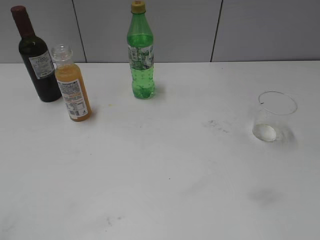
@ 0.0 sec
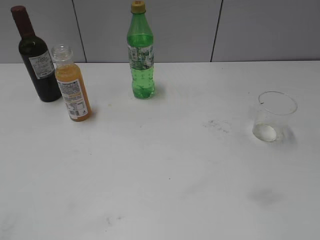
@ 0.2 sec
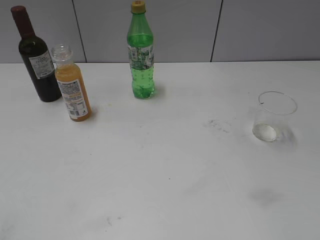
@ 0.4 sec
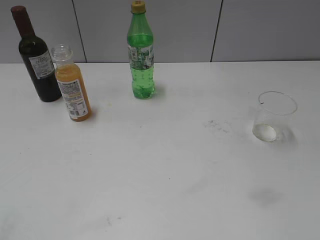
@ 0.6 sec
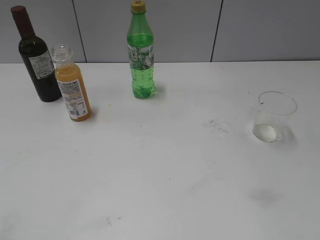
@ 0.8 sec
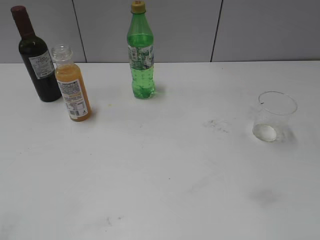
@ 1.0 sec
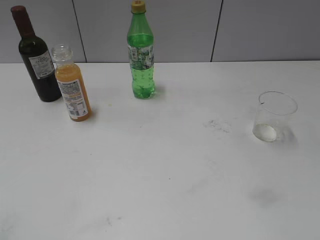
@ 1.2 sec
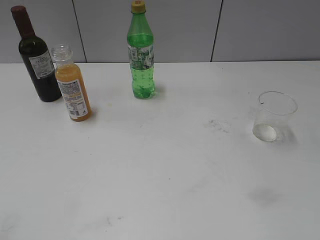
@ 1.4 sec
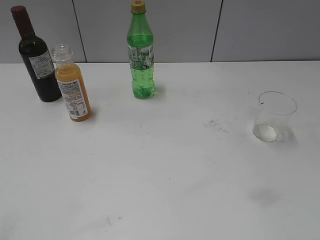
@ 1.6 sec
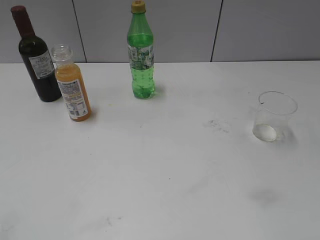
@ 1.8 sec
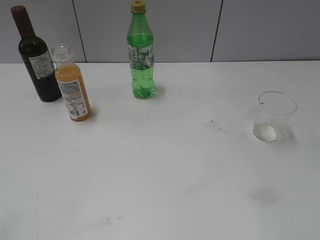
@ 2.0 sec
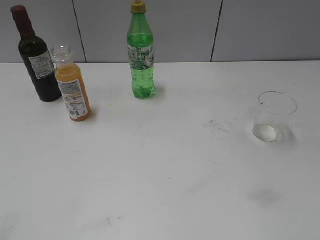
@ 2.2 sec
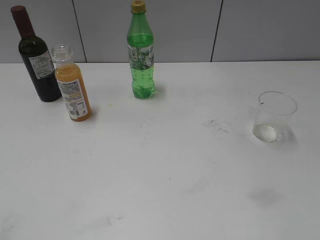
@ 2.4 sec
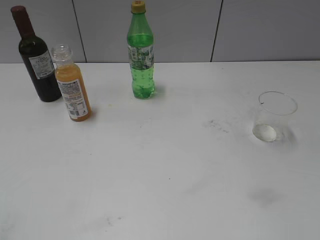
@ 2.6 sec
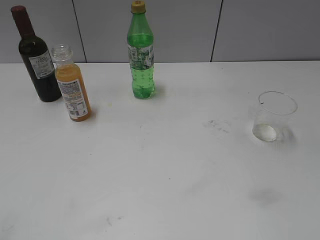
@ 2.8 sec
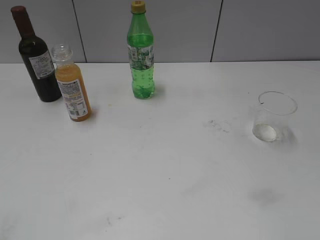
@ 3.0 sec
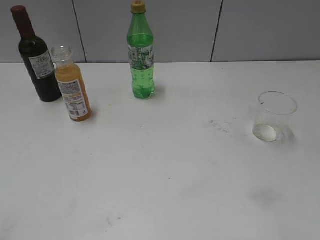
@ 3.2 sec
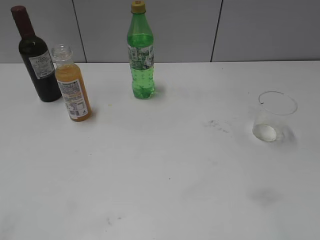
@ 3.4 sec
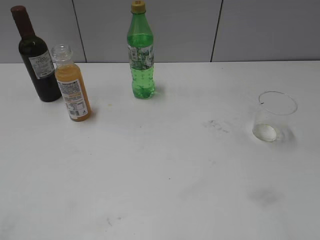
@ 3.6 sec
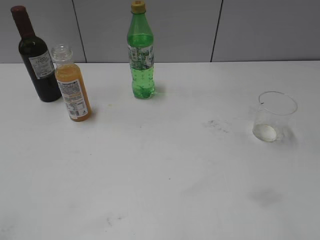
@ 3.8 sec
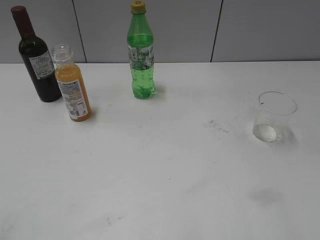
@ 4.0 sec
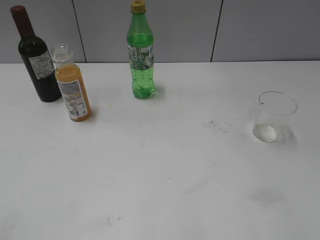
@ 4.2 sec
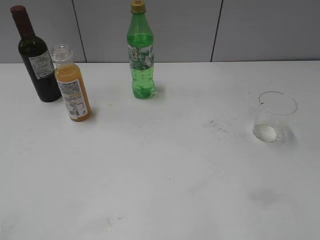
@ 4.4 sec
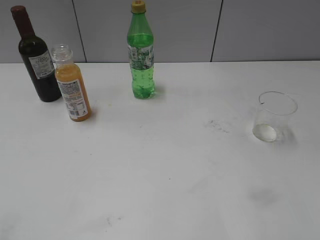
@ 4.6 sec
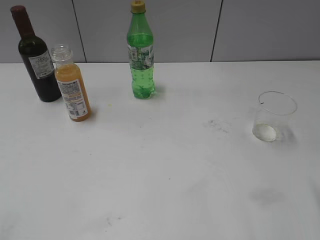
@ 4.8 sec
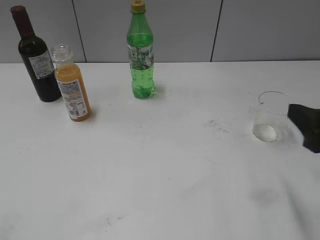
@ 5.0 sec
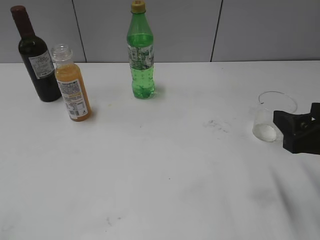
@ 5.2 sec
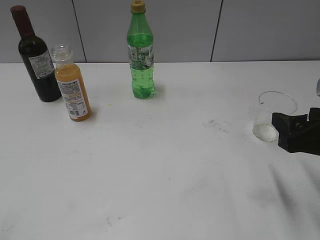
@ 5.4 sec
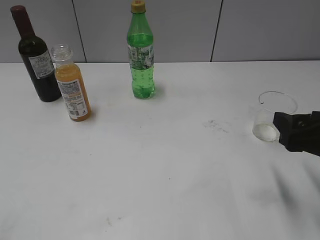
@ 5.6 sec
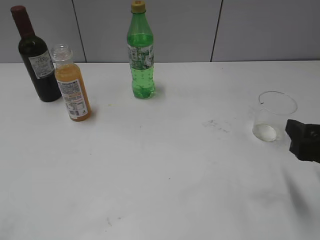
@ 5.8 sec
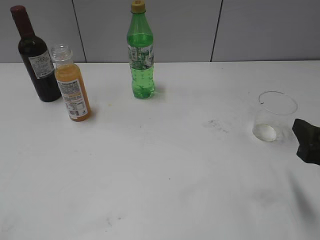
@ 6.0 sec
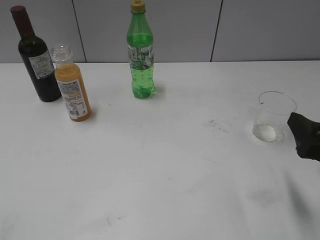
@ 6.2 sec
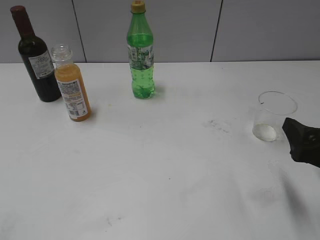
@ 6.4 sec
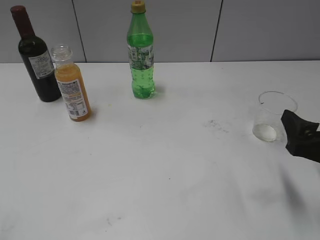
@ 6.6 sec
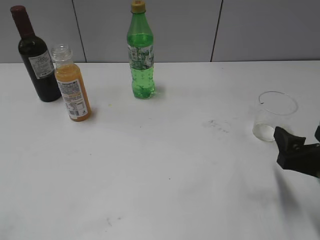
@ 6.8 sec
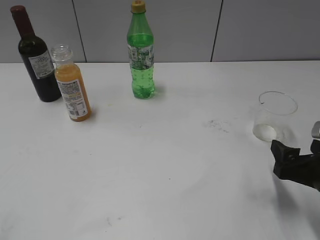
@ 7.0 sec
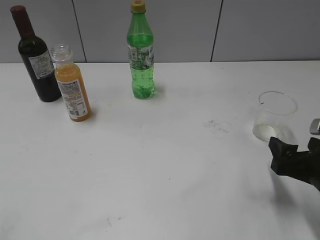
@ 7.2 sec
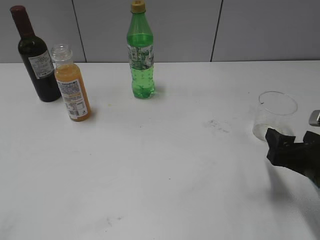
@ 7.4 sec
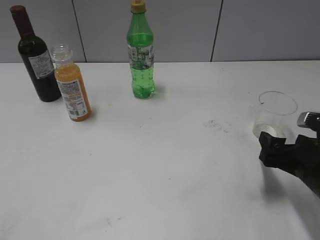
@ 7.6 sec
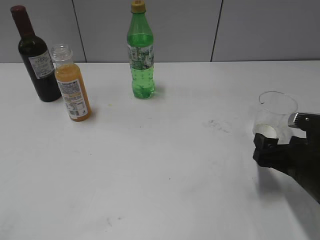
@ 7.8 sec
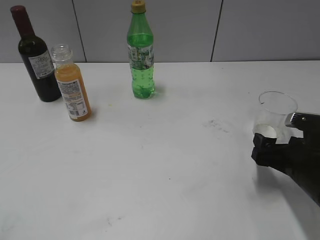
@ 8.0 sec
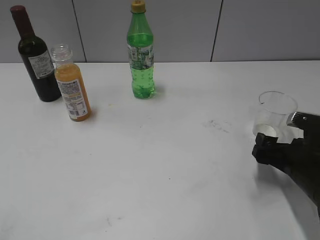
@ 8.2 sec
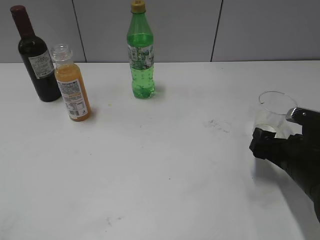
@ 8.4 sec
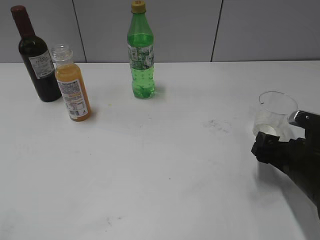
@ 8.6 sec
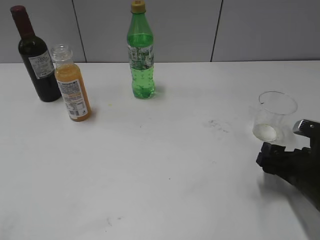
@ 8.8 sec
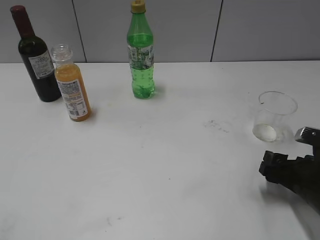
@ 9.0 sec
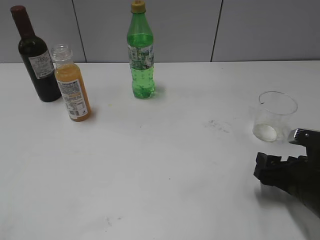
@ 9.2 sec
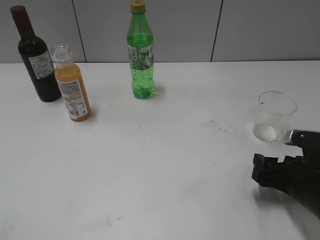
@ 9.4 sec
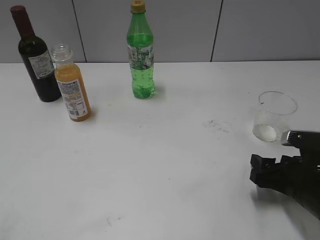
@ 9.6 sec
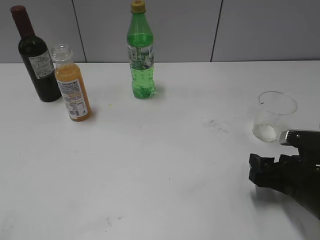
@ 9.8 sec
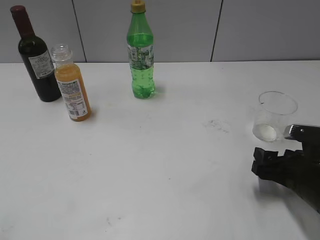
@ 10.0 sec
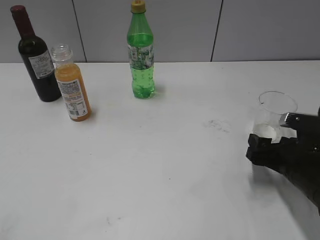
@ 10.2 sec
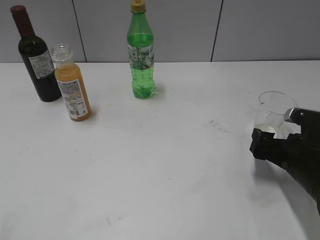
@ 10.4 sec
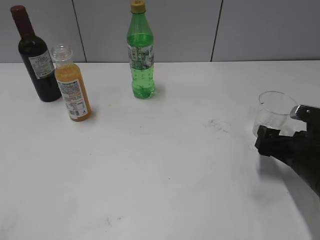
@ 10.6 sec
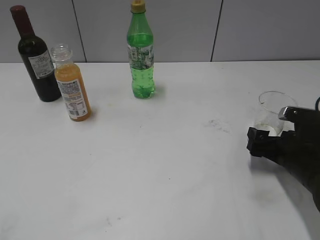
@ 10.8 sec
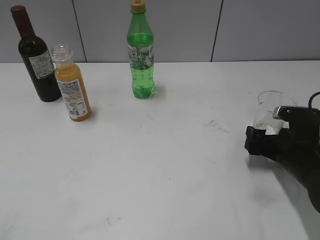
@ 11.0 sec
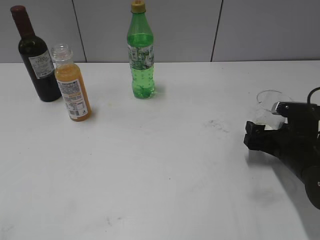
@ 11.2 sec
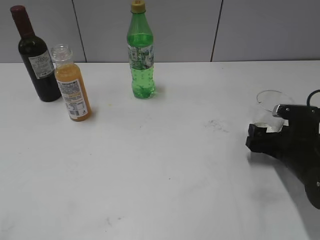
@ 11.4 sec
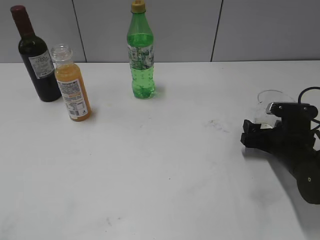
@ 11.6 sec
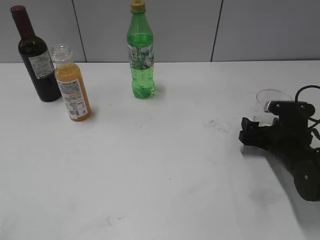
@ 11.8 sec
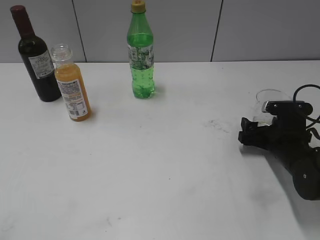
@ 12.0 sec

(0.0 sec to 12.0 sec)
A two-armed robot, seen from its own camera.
4.4 sec - 6.0 sec: The right gripper shifts roughly 10 cm downward.
6.0 sec - 7.6 sec: The right gripper moves downward, about 5 cm, and opens up.
7.6 sec - 9.0 sec: The right gripper closes its fingers.
9.0 sec - 10.4 sec: The right gripper opens.
10.4 sec - 12.0 sec: The right gripper travels forward by about 5 cm.

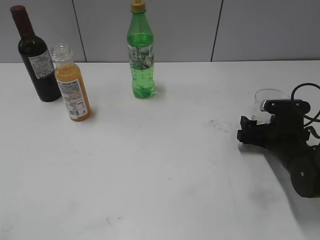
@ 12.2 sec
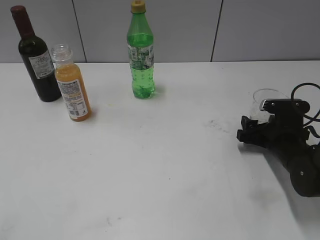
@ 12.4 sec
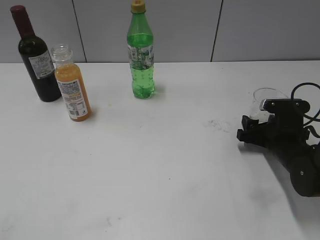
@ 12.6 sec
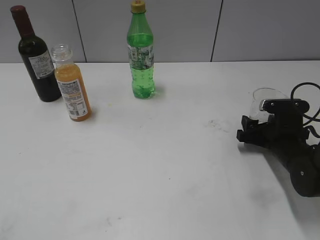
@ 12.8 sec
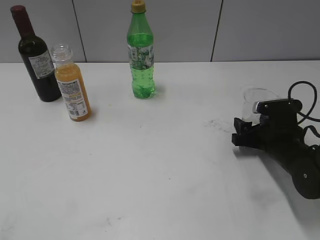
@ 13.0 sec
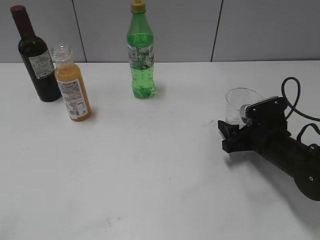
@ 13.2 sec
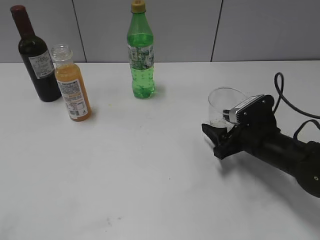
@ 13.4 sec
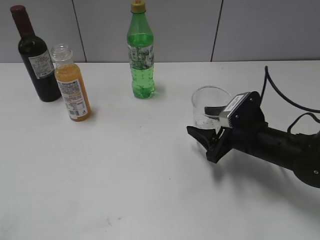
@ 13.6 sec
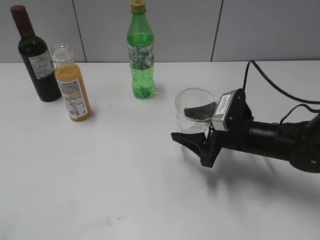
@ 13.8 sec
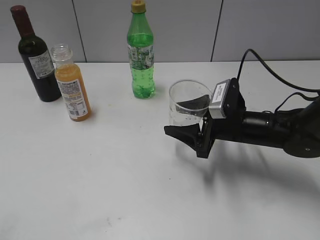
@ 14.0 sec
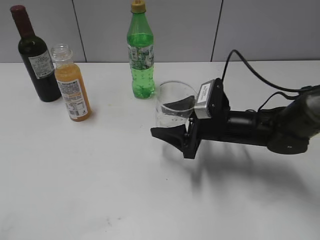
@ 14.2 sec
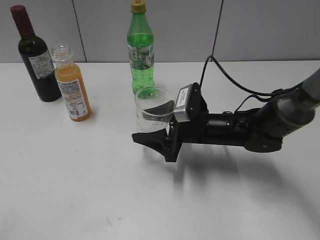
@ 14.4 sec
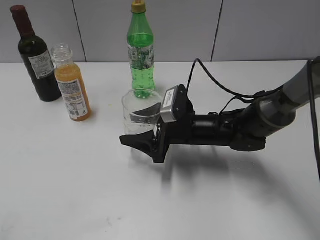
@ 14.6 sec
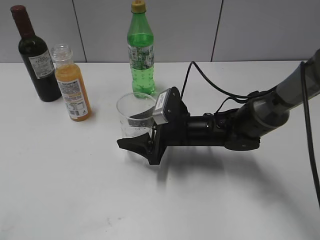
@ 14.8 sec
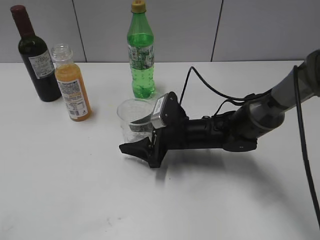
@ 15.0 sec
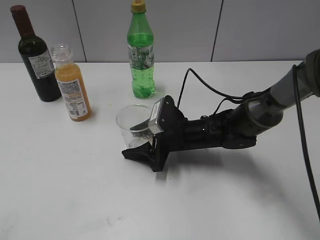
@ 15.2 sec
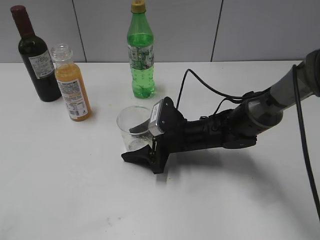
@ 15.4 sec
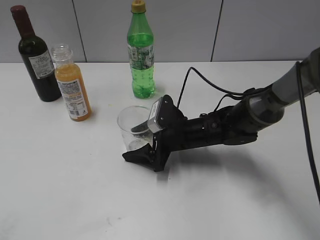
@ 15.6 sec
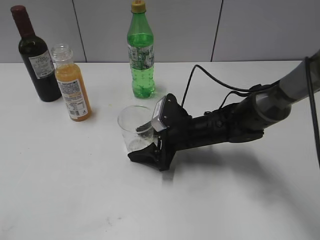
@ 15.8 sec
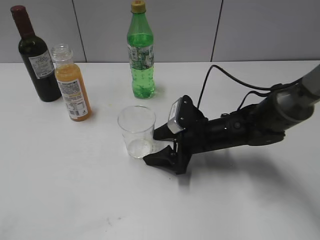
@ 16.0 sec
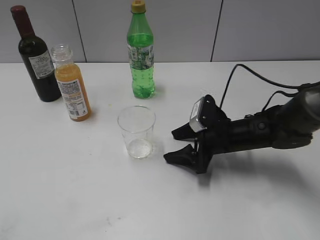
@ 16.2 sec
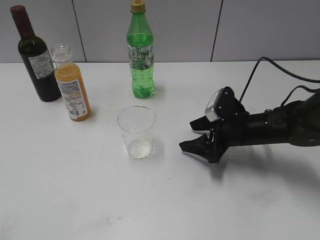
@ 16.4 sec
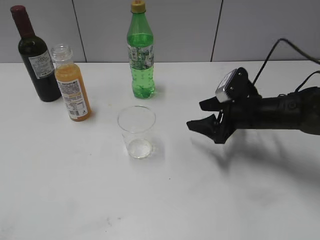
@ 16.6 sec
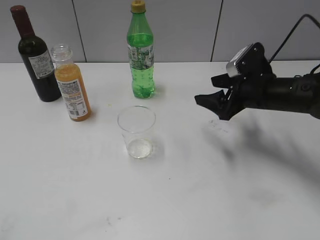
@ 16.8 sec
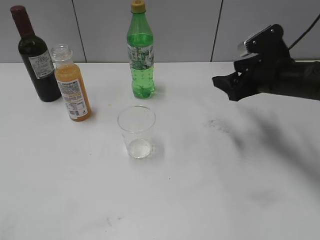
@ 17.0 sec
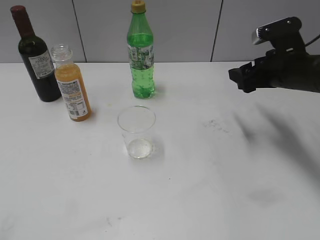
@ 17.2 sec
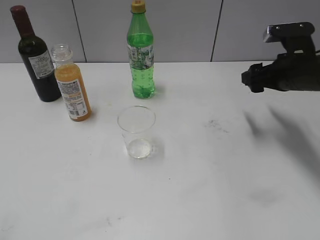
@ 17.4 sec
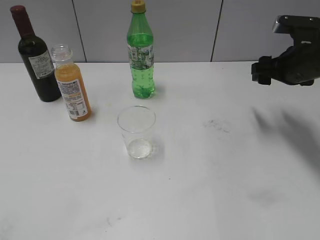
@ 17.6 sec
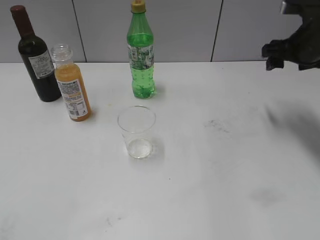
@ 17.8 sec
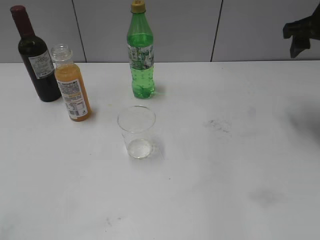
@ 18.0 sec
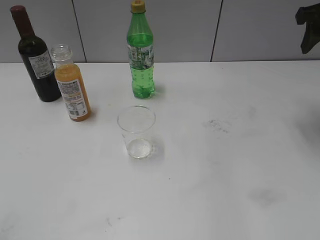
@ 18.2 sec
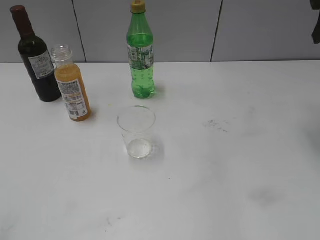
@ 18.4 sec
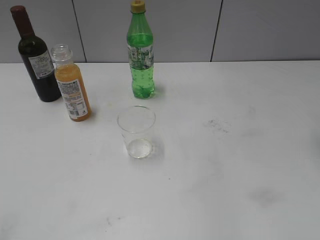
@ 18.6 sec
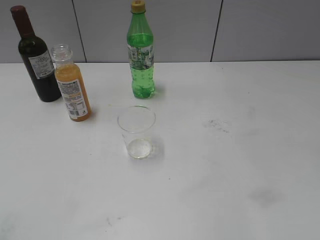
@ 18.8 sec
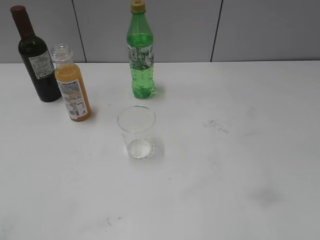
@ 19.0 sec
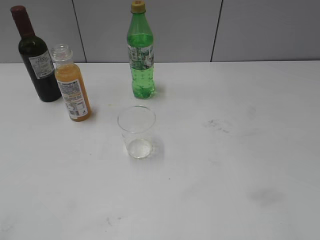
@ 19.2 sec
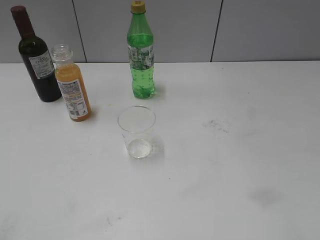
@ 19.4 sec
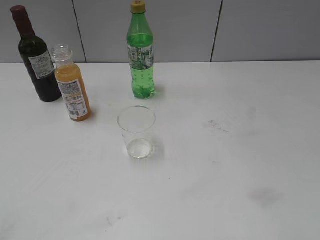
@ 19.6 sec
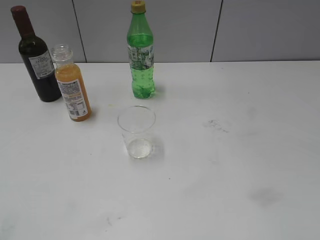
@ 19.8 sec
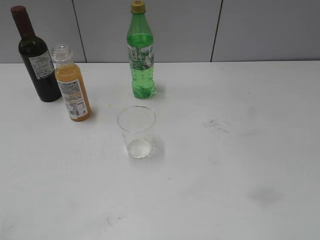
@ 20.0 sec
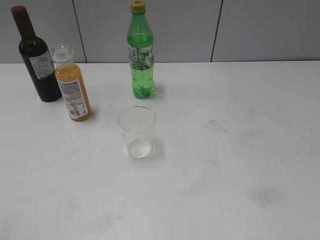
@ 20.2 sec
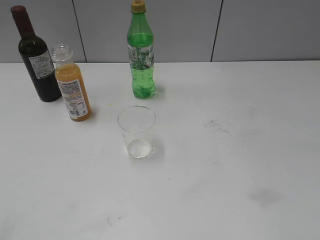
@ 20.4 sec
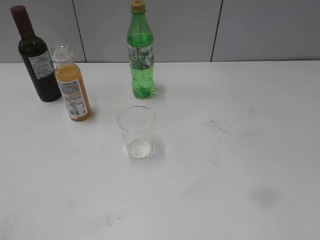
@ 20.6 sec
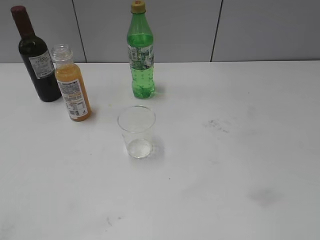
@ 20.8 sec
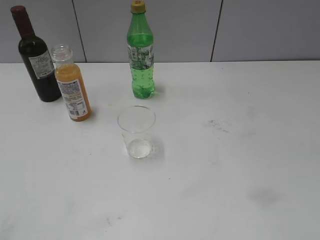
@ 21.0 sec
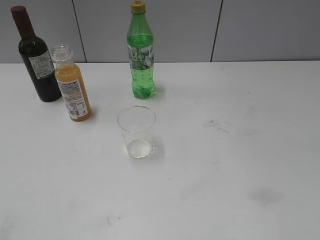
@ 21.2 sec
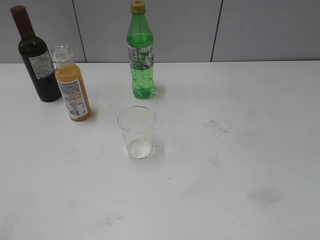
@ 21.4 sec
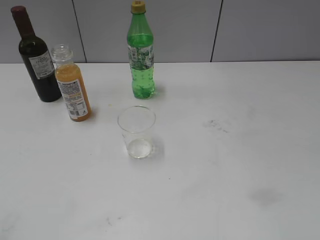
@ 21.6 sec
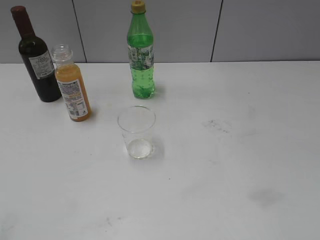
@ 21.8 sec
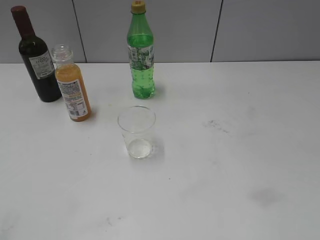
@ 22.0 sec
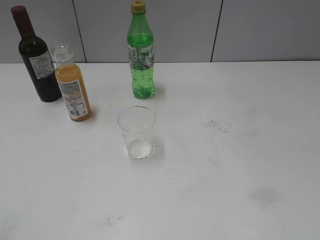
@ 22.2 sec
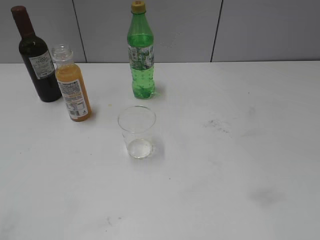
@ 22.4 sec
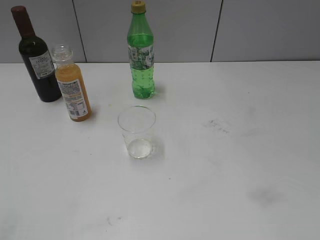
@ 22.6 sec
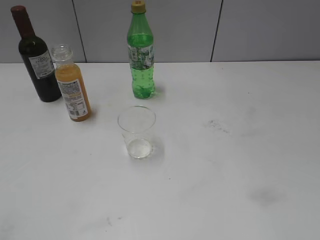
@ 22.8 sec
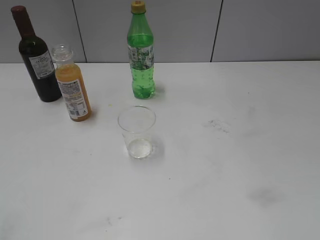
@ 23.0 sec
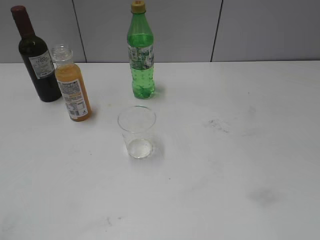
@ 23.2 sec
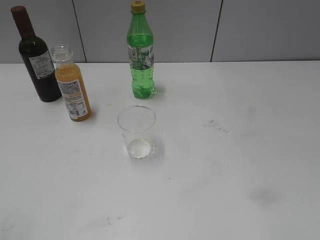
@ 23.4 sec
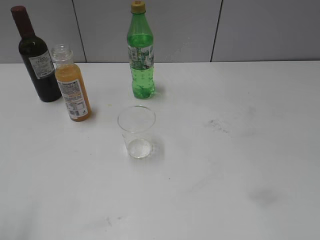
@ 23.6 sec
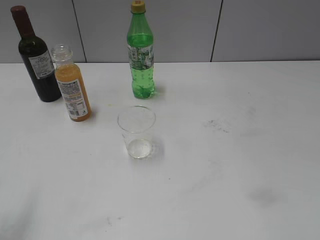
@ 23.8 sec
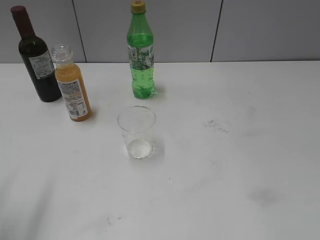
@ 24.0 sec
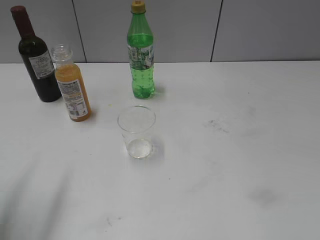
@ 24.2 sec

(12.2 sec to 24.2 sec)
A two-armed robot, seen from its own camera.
Step, 13.4 sec - 16.0 sec: Place the transparent cup on the table with right gripper.
12.2 sec - 13.8 sec: The right gripper travels to the left by approximately 10 cm, and closes up.
13.8 sec - 15.2 sec: The right gripper moves to the left, roughly 10 cm.
15.2 sec - 16.6 sec: The right gripper travels to the right and upward by approximately 15 cm, and opens its fingers.
16.6 sec - 18.2 sec: The right gripper heads upward and to the right, covering roughly 25 cm, and closes its fingers.
18.2 sec - 19.8 sec: The right gripper heads backward, covering approximately 35 cm.
22.6 sec - 24.2 sec: The left gripper travels forward by roughly 15 cm.
